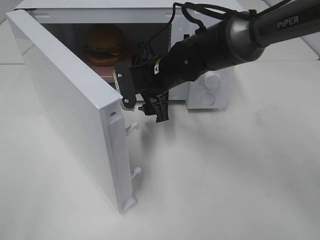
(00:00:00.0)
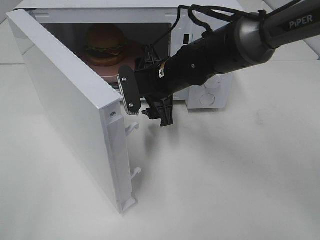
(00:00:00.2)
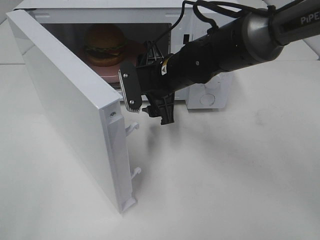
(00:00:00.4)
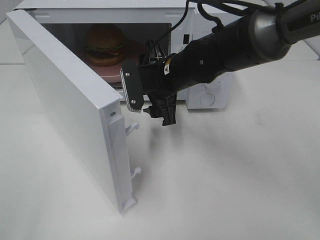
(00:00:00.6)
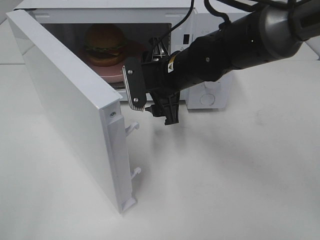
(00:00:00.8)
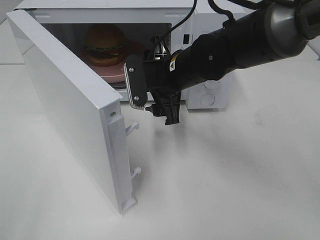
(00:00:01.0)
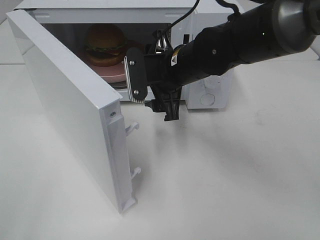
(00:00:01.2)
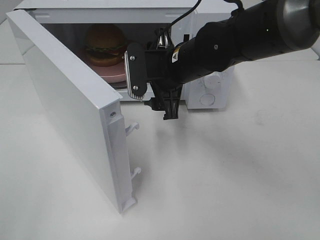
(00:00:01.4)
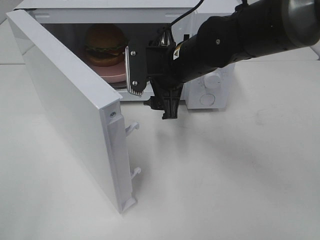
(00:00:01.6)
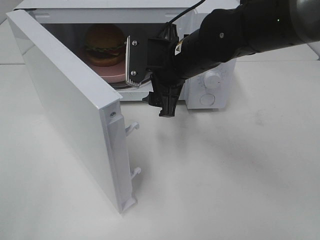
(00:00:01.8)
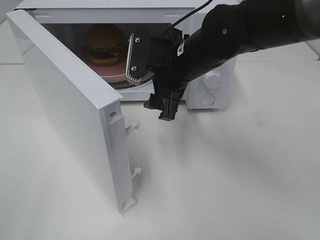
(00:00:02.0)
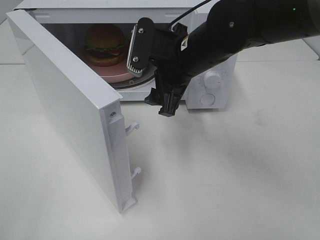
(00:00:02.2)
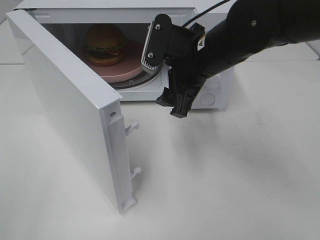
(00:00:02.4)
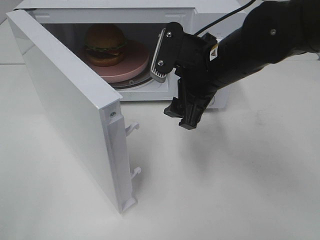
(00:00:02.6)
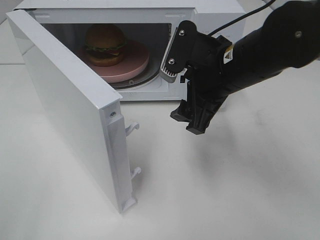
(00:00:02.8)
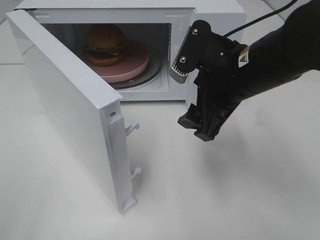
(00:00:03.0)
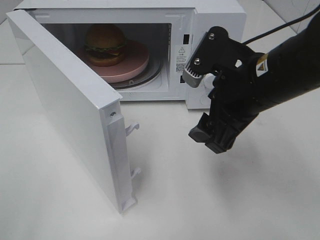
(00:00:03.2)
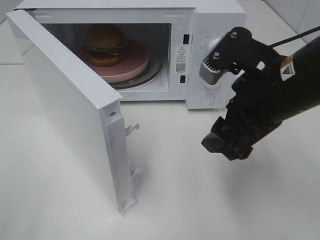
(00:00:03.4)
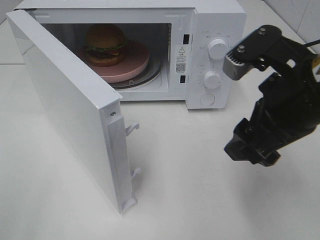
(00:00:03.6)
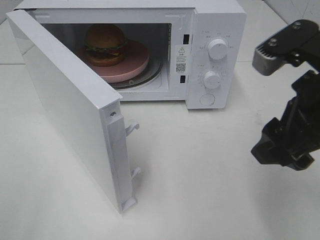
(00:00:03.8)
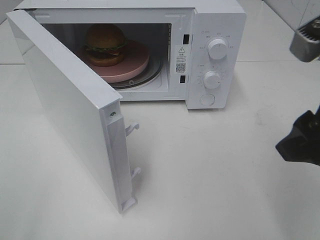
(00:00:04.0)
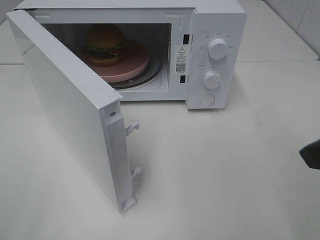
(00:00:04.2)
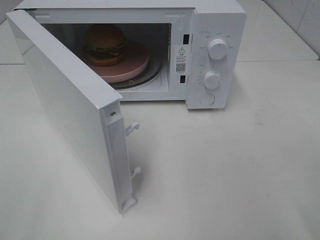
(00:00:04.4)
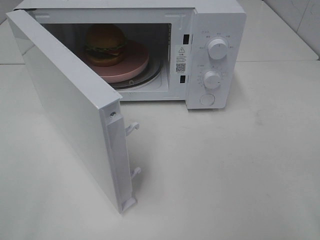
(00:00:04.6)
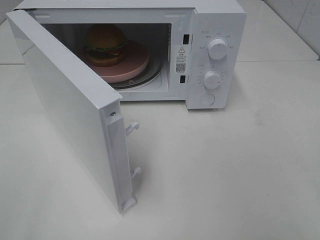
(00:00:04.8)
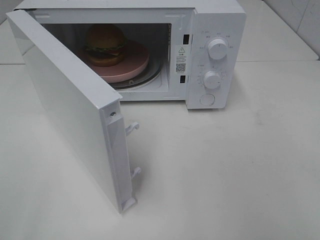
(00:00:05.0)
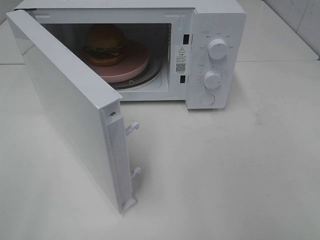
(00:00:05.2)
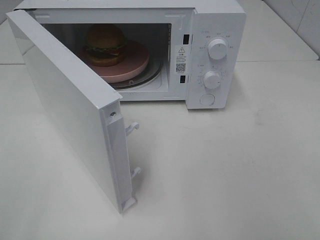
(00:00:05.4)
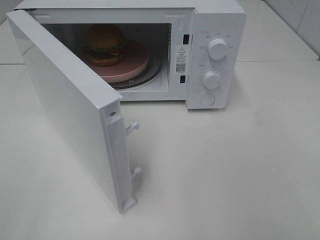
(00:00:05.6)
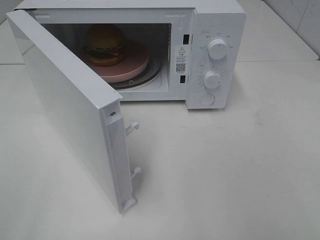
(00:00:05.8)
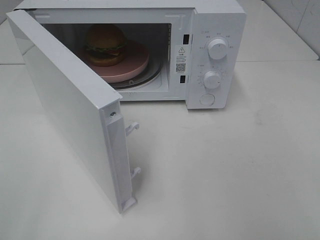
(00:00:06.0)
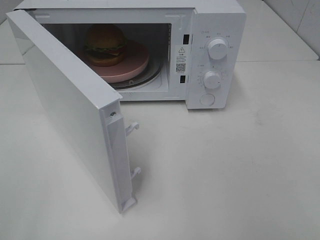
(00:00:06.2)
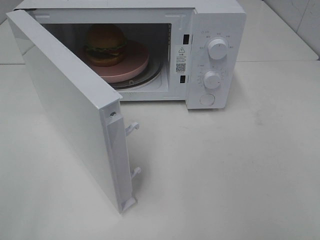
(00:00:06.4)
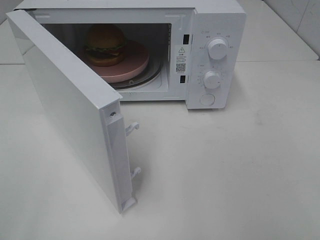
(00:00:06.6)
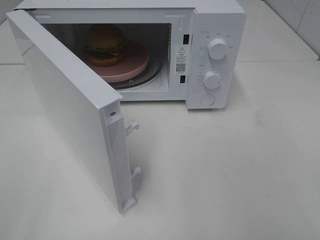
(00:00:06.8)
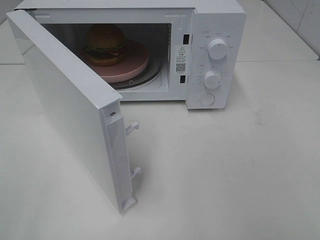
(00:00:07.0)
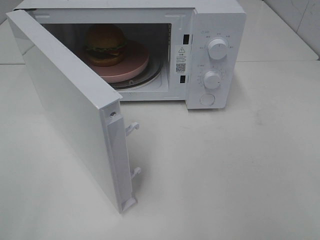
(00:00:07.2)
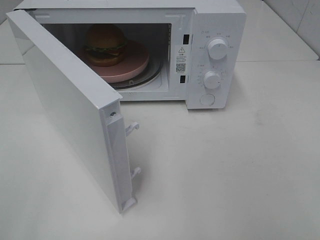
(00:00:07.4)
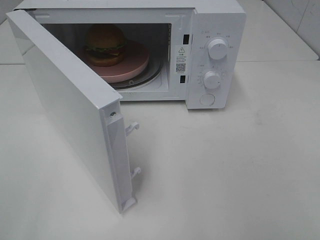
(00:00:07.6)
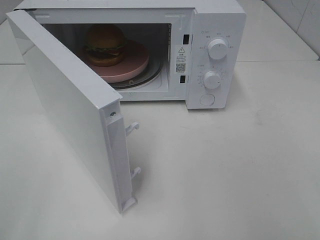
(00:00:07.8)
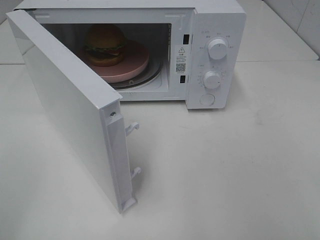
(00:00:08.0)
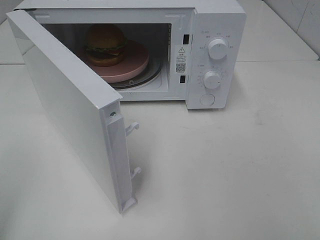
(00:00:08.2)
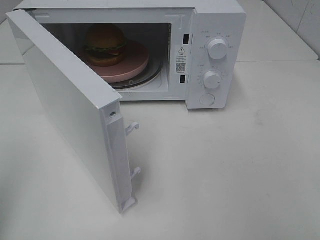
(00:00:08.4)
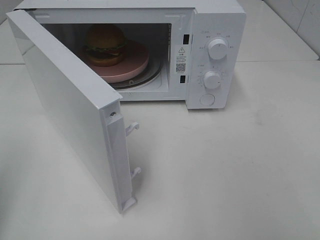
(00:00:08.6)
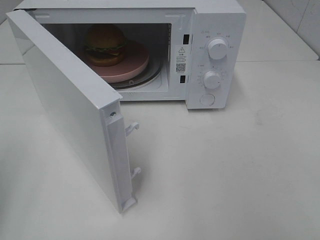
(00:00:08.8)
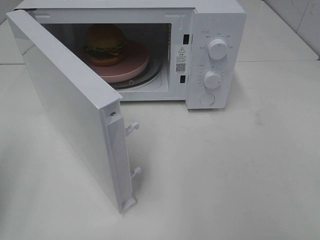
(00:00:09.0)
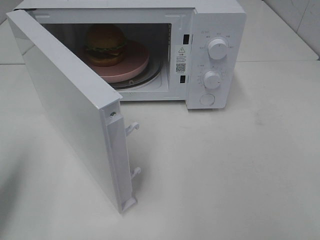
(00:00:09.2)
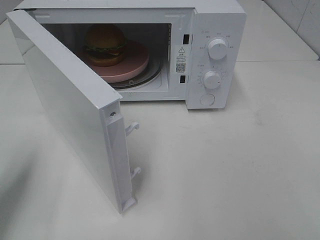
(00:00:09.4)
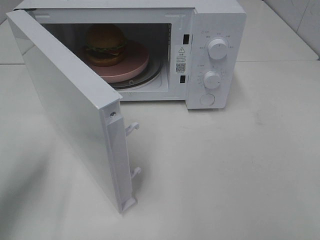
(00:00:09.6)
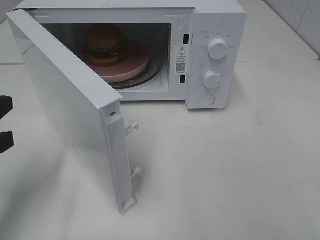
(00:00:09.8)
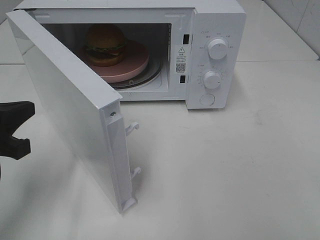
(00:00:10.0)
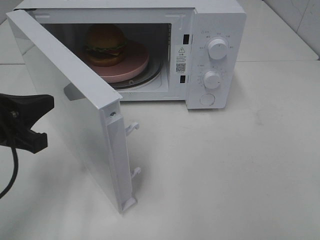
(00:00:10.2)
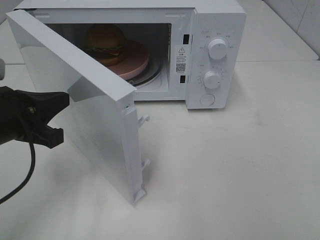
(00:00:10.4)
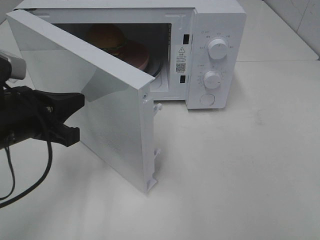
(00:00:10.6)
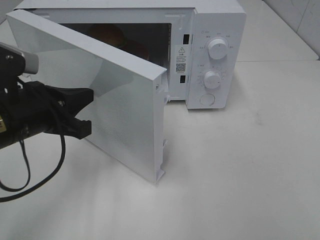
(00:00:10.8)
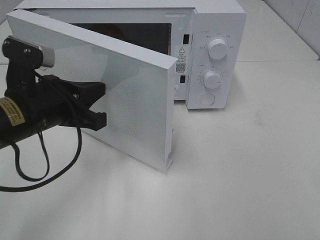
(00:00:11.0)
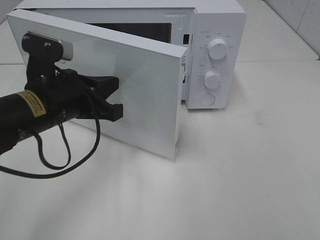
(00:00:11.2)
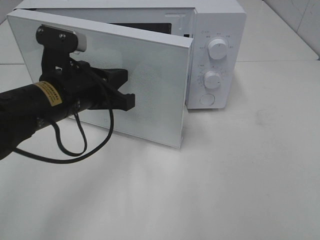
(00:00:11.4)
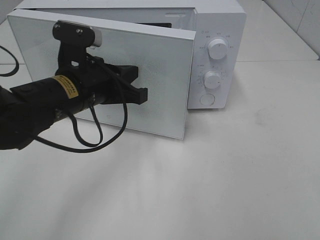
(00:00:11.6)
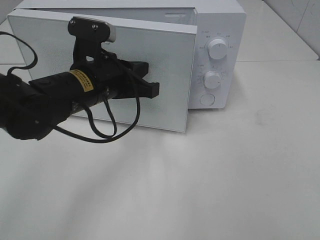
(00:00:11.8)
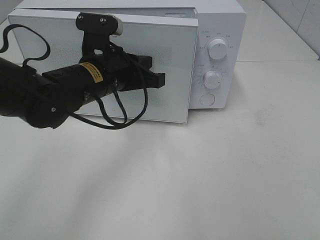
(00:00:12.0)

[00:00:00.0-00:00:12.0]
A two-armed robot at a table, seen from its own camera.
Task of the whole recording: Heat the burger.
00:00:00.0 to 00:00:01.6: The right gripper ends up approximately 5 cm from where it was.
00:00:01.6 to 00:00:03.0: The right gripper heads backward and to the right, covering approximately 10 cm.
00:00:03.0 to 00:00:04.4: The right gripper heads backward and to the right, covering some 20 cm.
00:00:06.0 to 00:00:07.6: Neither gripper changes place.
00:00:09.0 to 00:00:10.4: The left gripper shifts about 15 cm to the right, forward and downward.
00:00:10.4 to 00:00:12.0: The left gripper shifts about 15 cm to the right and forward.

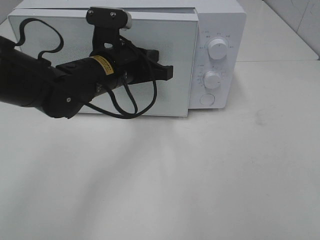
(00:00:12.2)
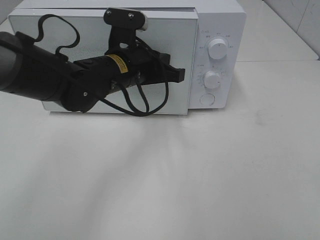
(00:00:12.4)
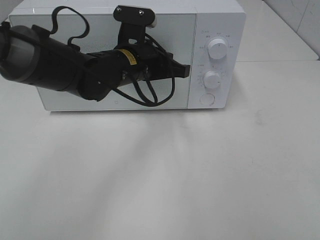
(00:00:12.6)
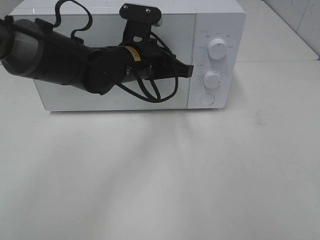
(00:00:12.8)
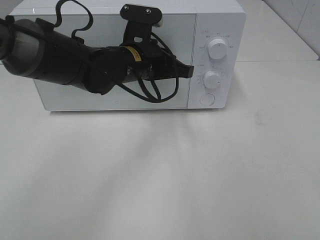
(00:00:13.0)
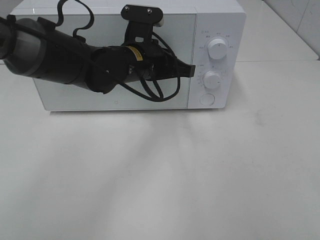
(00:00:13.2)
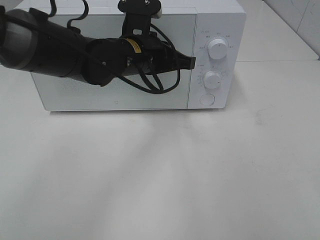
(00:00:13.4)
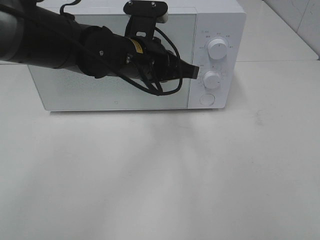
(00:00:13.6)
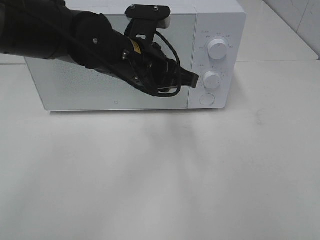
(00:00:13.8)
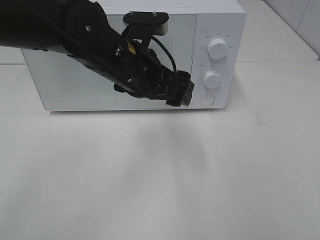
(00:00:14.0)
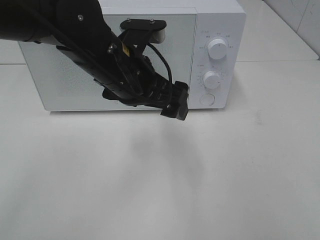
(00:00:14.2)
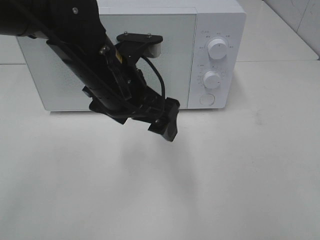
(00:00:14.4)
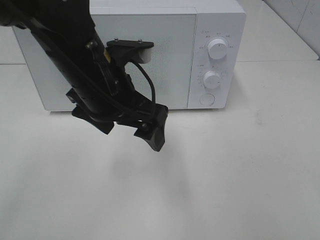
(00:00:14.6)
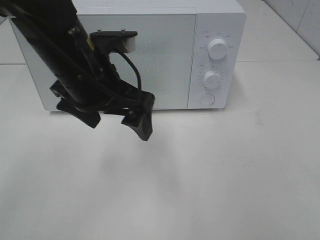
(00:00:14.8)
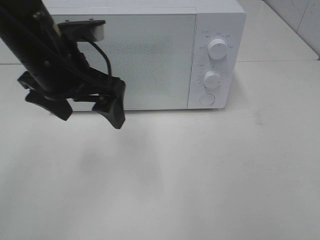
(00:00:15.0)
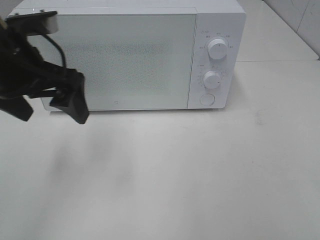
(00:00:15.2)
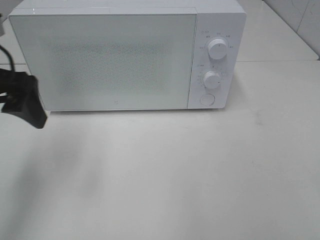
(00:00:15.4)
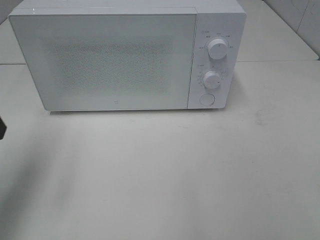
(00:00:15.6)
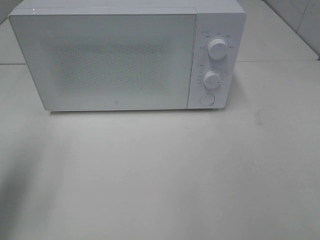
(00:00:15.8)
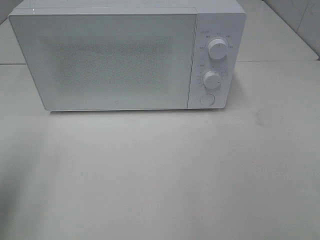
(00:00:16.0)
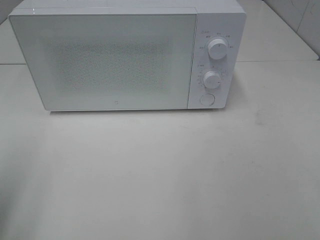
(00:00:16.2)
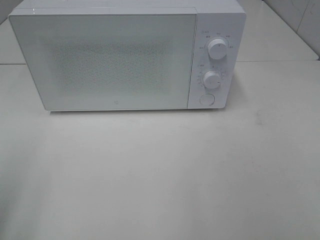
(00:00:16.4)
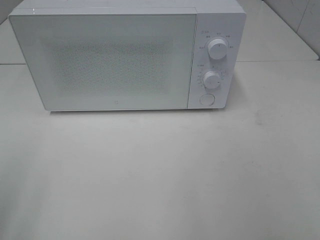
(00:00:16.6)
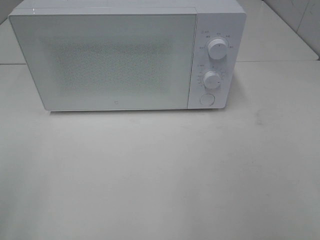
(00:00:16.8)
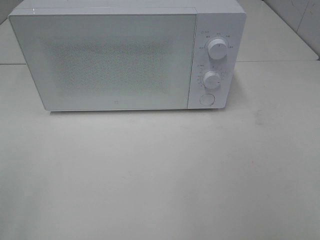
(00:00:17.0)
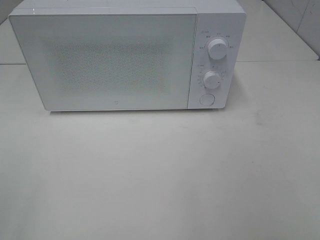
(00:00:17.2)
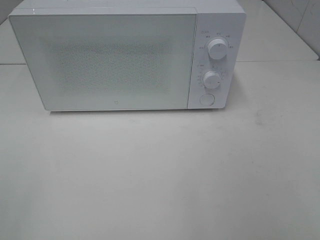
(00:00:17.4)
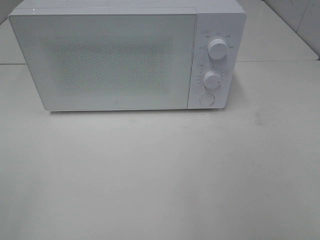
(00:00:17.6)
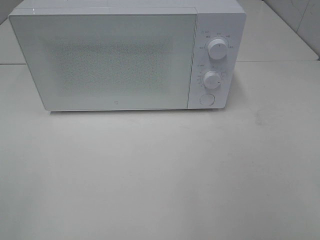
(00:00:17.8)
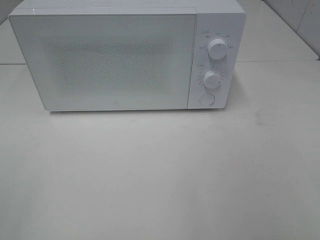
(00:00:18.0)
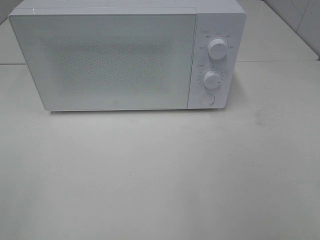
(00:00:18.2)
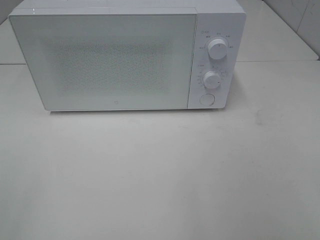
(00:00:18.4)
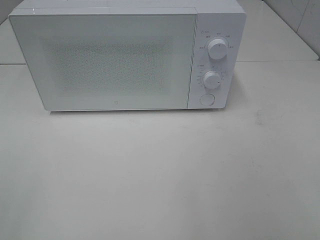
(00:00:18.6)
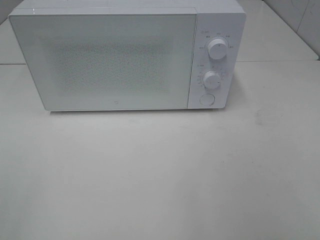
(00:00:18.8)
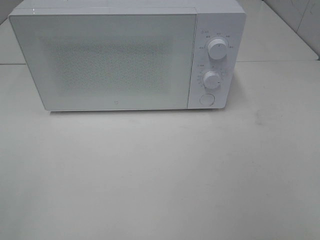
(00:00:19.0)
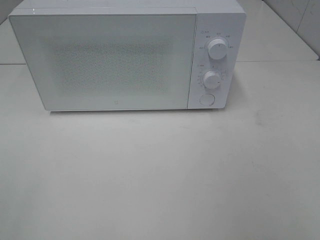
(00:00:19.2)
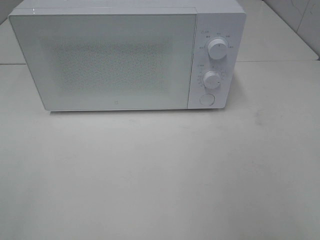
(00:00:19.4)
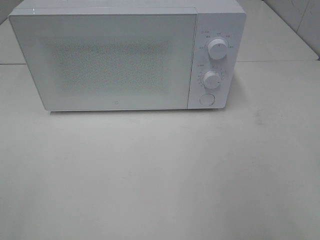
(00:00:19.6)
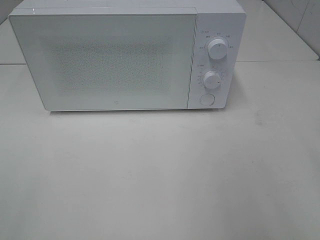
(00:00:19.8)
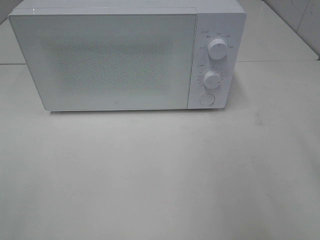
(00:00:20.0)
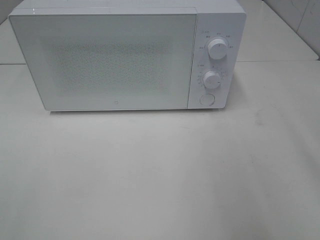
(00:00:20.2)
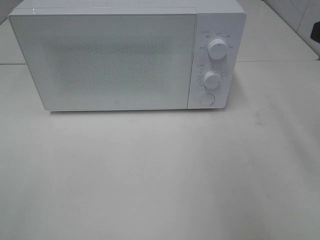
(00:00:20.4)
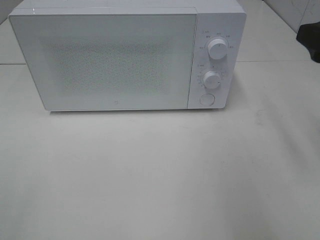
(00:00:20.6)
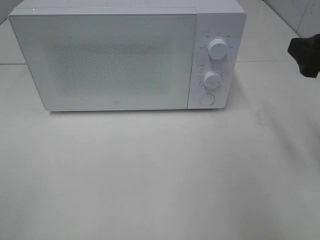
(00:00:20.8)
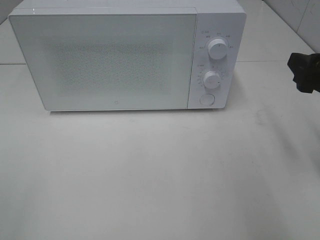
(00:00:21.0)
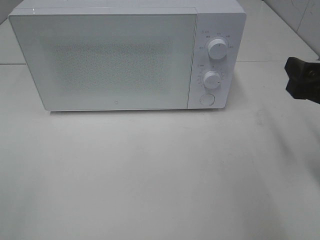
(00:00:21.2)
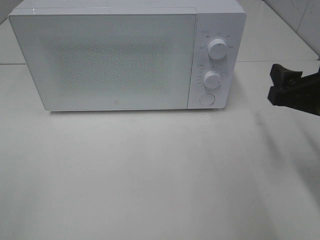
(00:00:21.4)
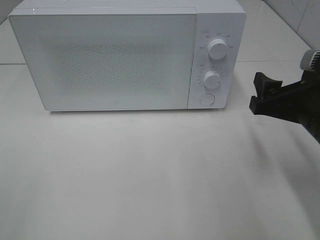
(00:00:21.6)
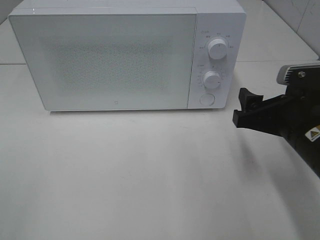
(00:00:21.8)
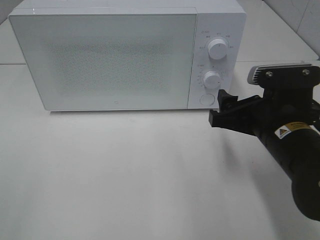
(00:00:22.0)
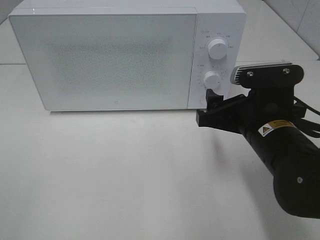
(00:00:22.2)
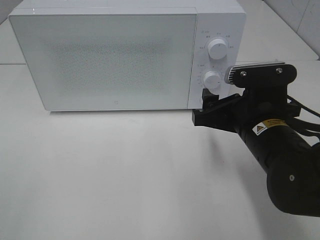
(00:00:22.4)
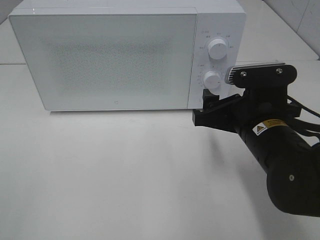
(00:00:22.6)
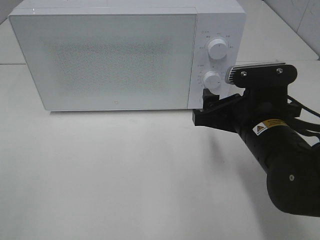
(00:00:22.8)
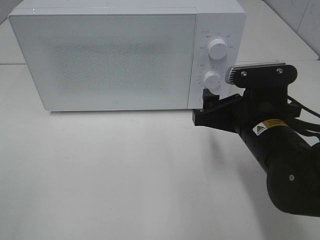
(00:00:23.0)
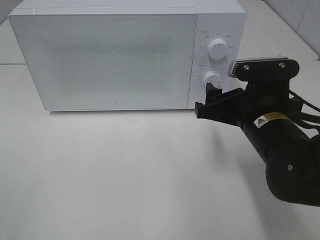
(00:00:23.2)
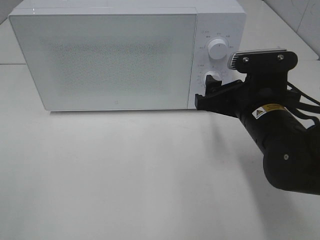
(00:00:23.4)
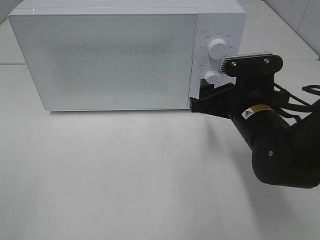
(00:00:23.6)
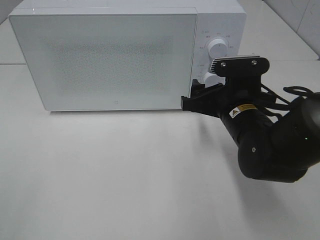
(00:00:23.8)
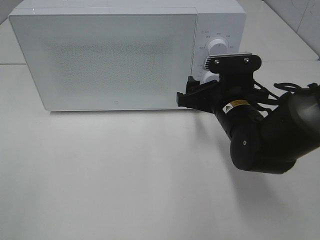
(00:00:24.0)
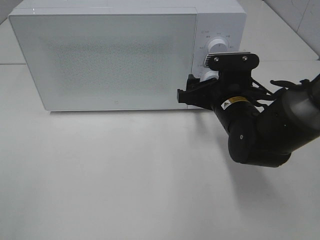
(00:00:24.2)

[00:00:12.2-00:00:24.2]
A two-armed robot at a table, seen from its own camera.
Task of the whole recording: Heat the burger.
00:00:13.8 to 00:00:15.2: The left gripper travels to the left by about 15 cm, and opens its fingers.
00:00:15.2 to 00:00:16.6: The left gripper goes some 25 cm backward and to the left.
00:00:19.8 to 00:00:21.2: The right gripper heads downward and forward, covering some 15 cm.
00:00:21.2 to 00:00:22.6: The right gripper moves to the left and downward, approximately 15 cm.
00:00:22.6 to 00:00:24.2: The right gripper goes some 10 cm forward.
